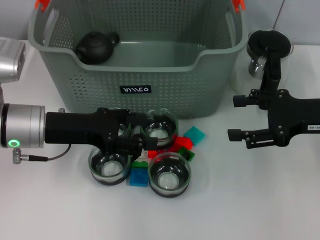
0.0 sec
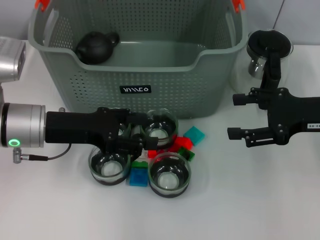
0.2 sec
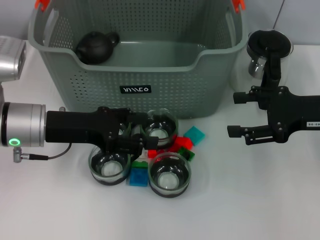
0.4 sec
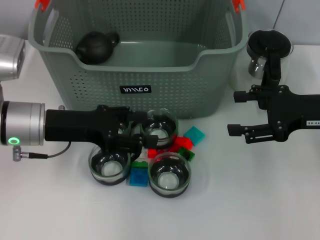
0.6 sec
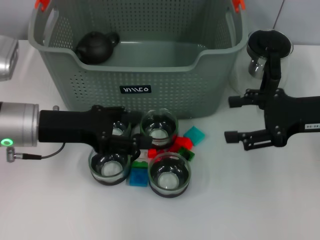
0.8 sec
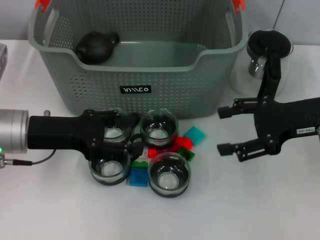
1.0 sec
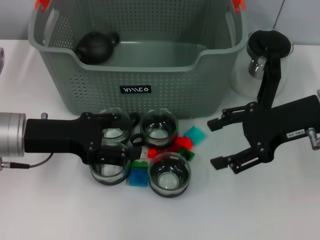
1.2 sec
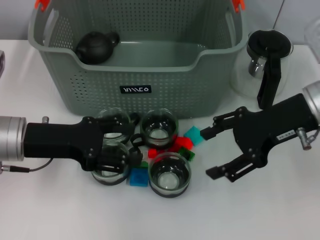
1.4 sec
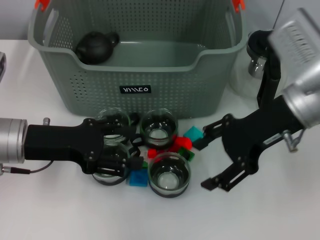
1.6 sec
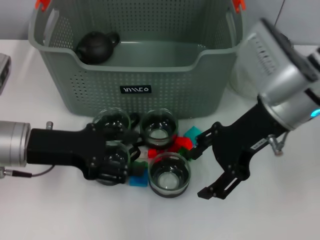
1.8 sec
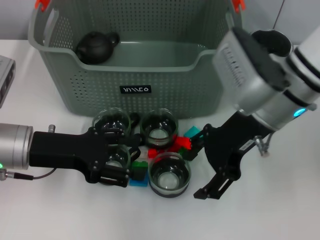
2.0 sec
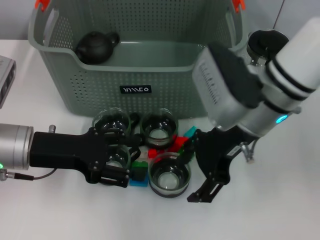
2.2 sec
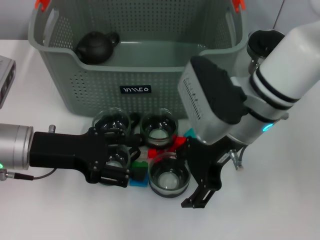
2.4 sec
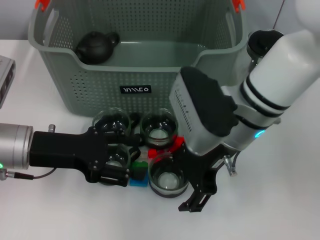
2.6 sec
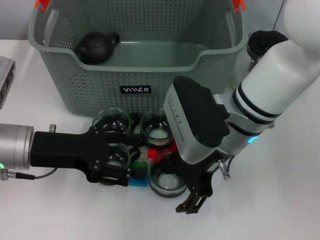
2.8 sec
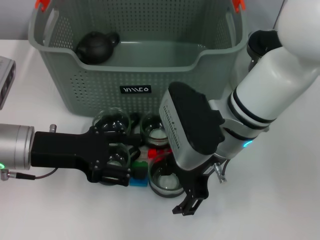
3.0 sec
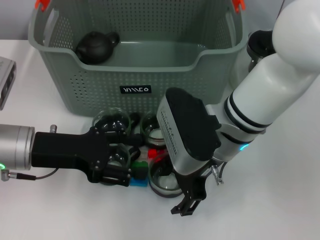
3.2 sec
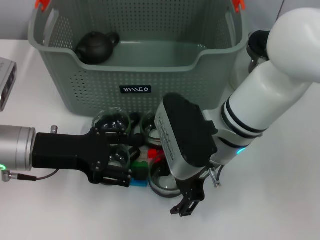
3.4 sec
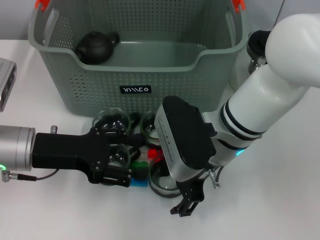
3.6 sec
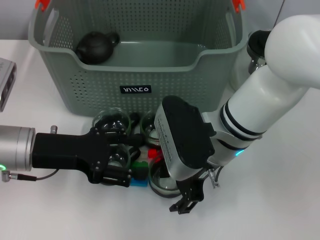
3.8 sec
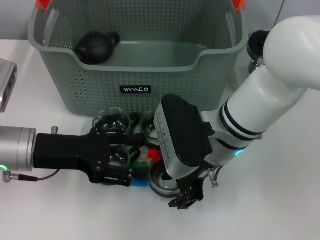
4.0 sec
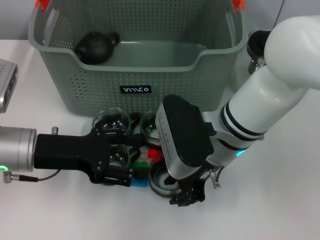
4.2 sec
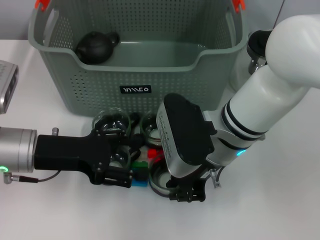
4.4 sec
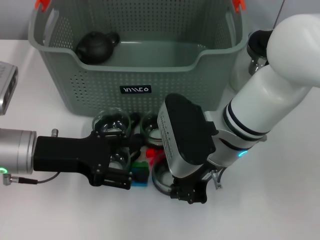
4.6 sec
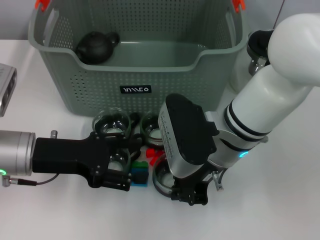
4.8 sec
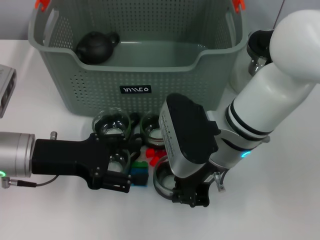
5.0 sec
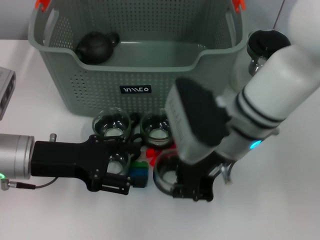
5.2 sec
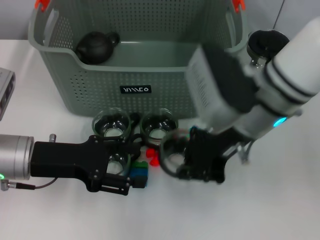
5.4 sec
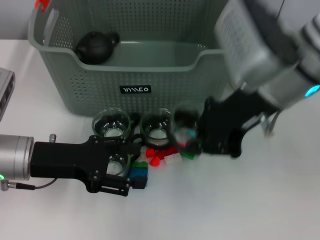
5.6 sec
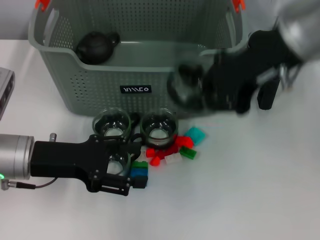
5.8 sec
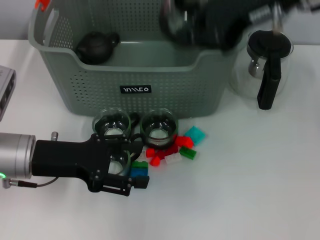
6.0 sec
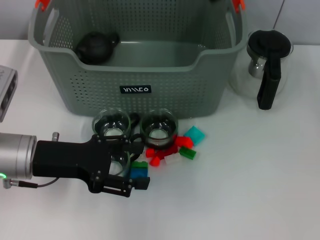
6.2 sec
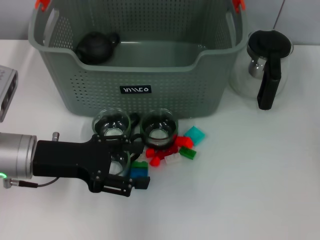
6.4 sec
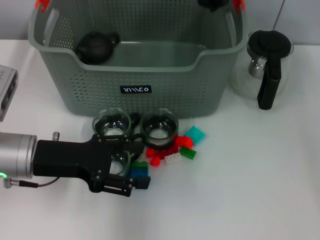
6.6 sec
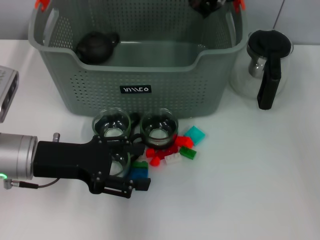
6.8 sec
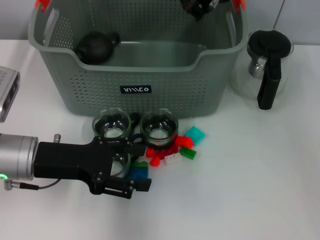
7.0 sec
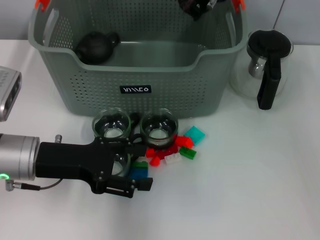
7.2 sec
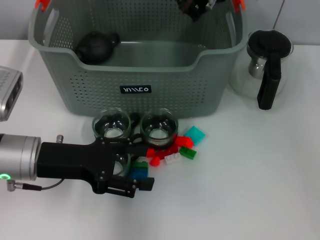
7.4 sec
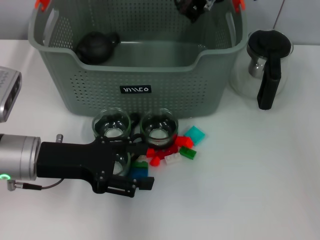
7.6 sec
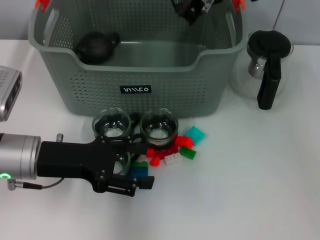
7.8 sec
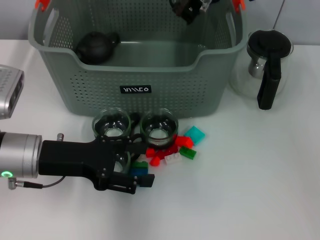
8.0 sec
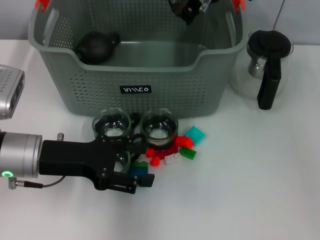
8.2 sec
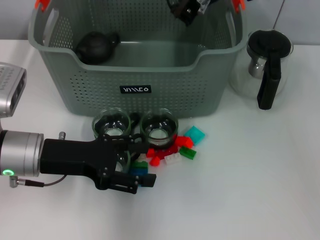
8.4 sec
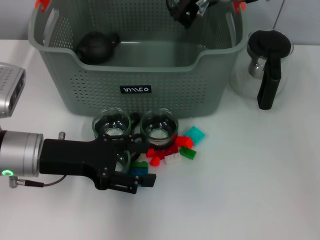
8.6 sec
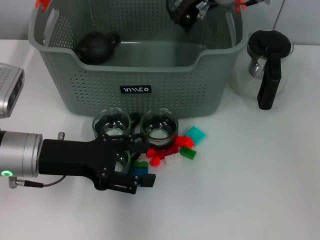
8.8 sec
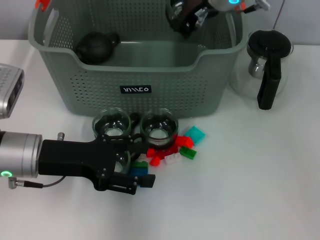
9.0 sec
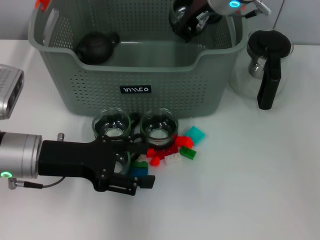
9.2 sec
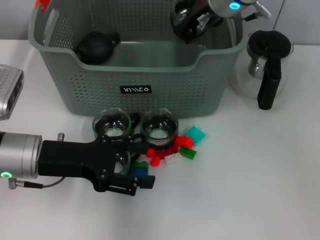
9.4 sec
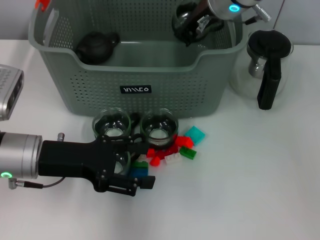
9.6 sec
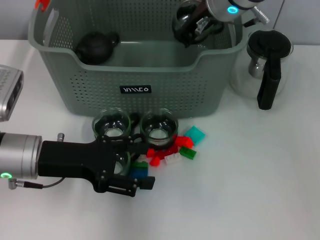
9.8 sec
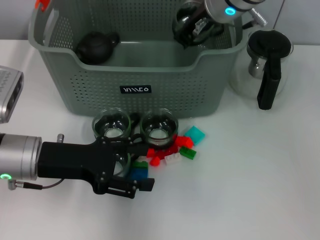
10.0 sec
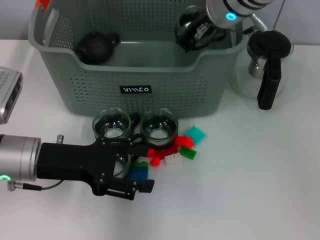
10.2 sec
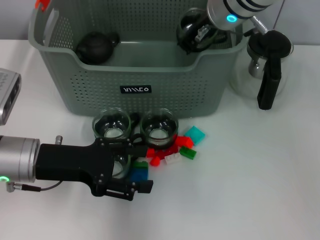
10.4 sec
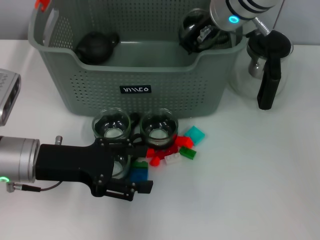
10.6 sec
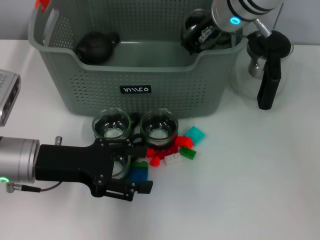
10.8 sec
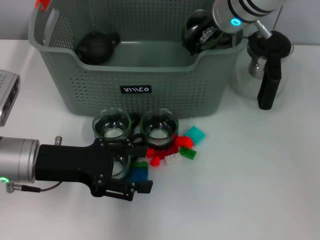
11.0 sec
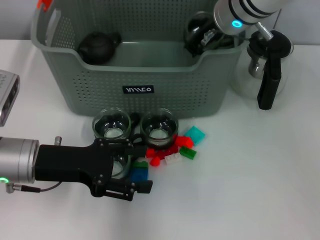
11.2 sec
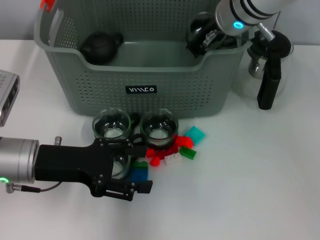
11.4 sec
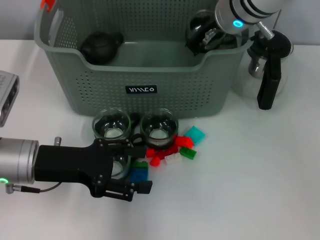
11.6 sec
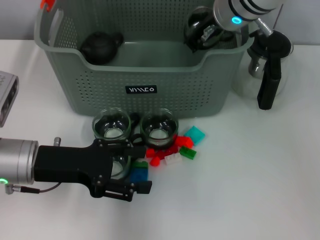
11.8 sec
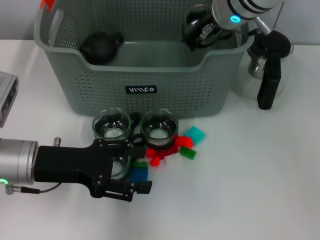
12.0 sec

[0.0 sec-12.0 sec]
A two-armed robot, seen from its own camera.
Task of the whole recording: pick up the teacup on the table and place it into the storage bin, pick up the block on the table and place it into the storage bin.
Step, 0.0 sec to 4.6 sec: Grasp the cup with right gripper.
0.0 sec to 1.6 sec: The right gripper is displaced to the left and upward by approximately 10 cm.
1.6 sec to 3.0 sec: The right gripper goes roughly 10 cm to the left.
3.0 sec to 4.4 sec: The right gripper closes up.
4.4 sec to 6.0 sec: The right gripper goes about 20 cm upward, and closes up.
6.0 sec to 7.6 sec: The right gripper heads forward, downward and to the left, covering some 15 cm.
7.6 sec to 12.0 sec: The grippers stay close to where they were, moving slightly.

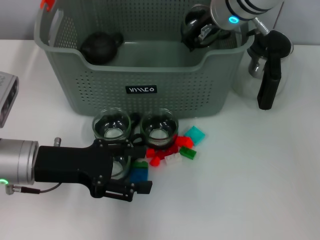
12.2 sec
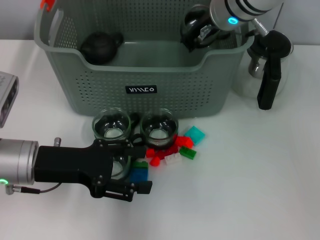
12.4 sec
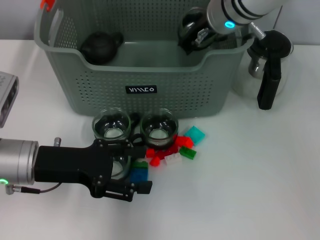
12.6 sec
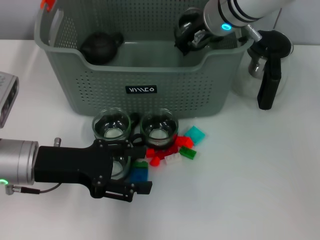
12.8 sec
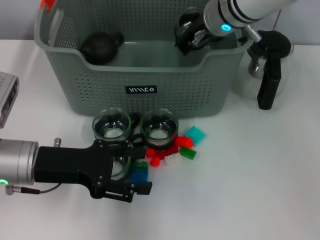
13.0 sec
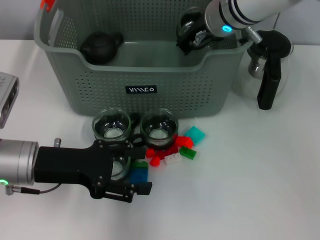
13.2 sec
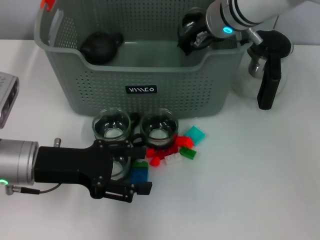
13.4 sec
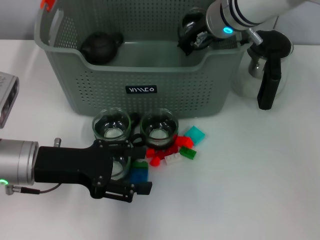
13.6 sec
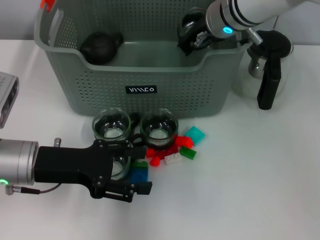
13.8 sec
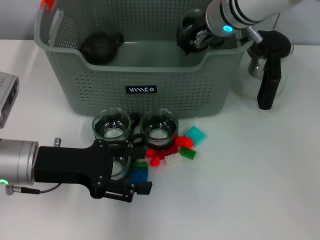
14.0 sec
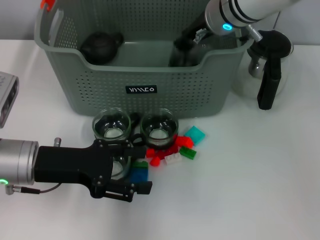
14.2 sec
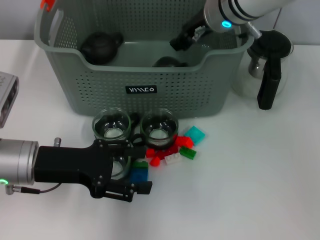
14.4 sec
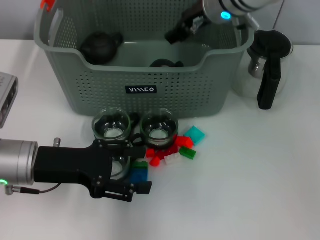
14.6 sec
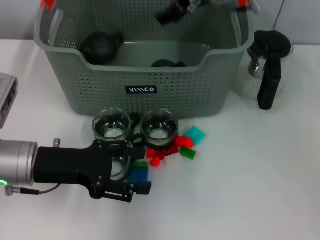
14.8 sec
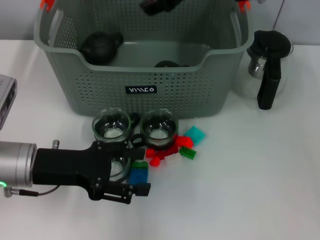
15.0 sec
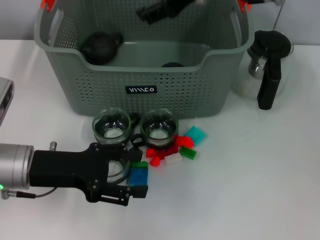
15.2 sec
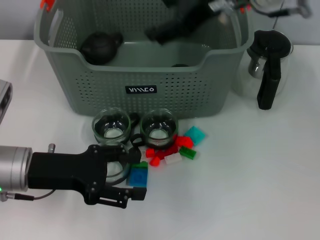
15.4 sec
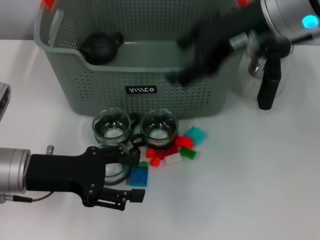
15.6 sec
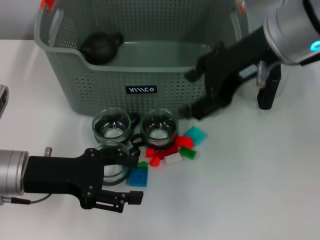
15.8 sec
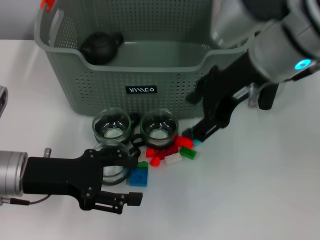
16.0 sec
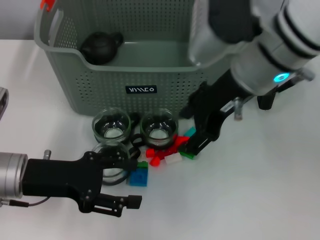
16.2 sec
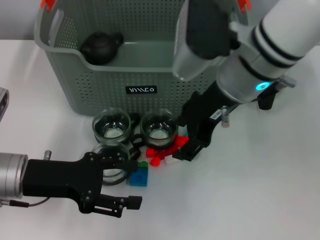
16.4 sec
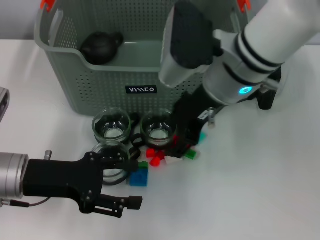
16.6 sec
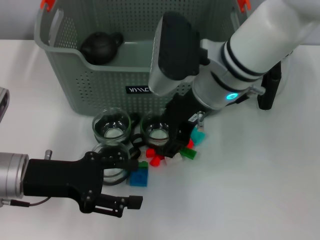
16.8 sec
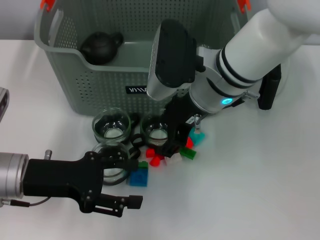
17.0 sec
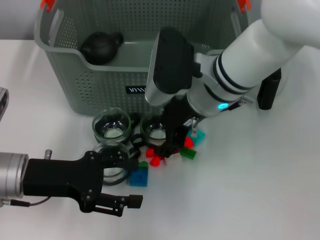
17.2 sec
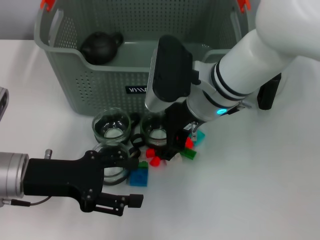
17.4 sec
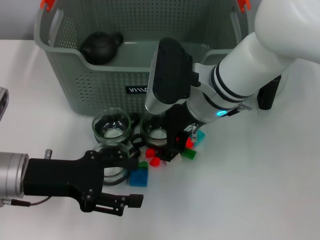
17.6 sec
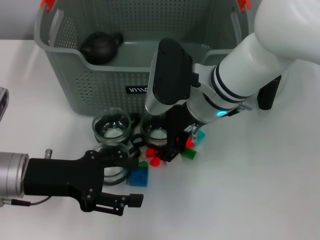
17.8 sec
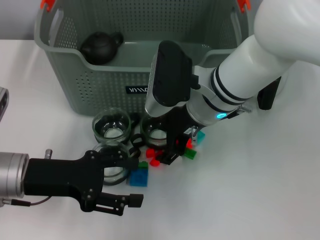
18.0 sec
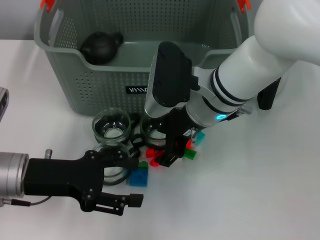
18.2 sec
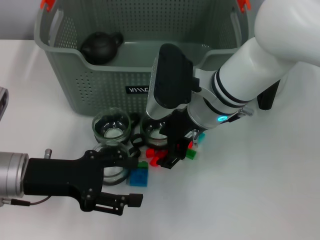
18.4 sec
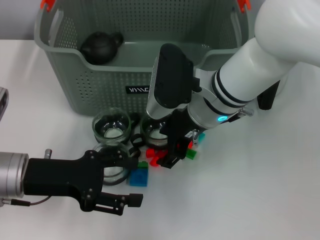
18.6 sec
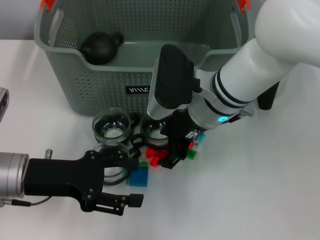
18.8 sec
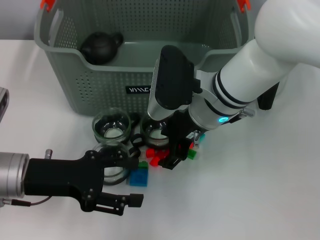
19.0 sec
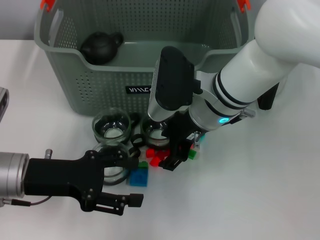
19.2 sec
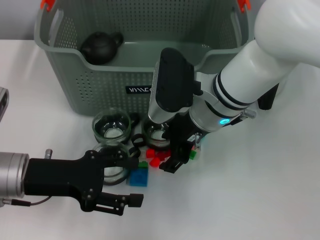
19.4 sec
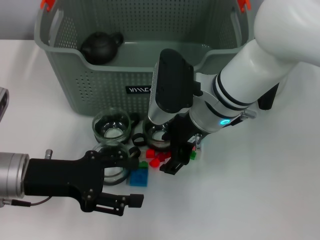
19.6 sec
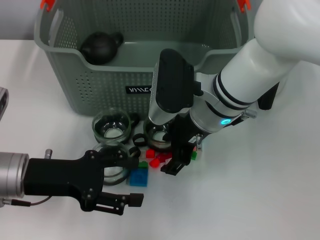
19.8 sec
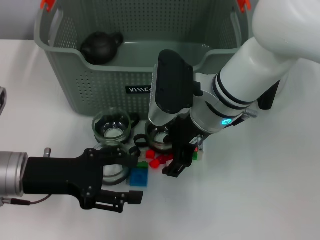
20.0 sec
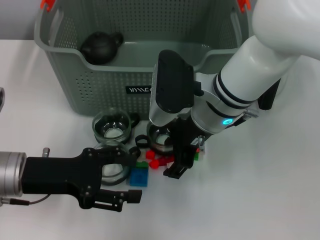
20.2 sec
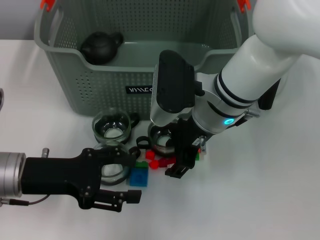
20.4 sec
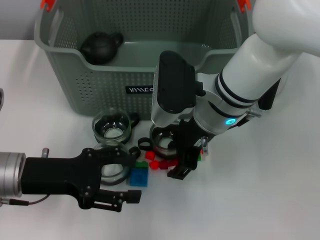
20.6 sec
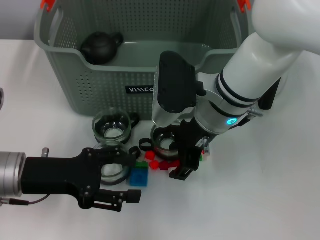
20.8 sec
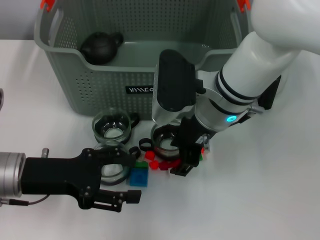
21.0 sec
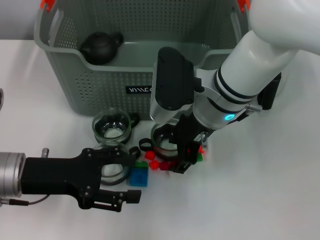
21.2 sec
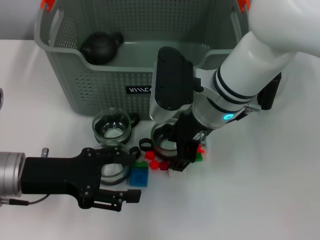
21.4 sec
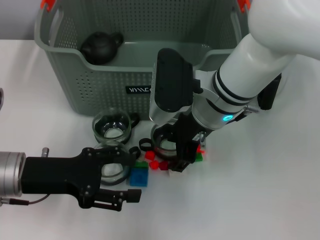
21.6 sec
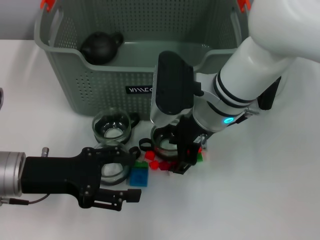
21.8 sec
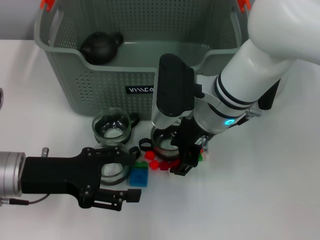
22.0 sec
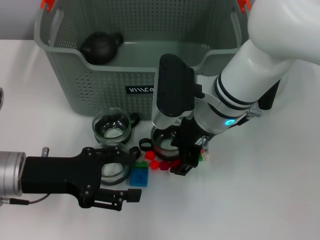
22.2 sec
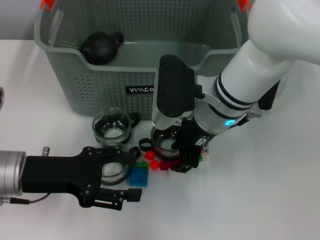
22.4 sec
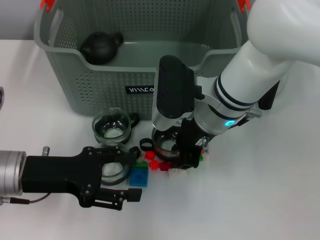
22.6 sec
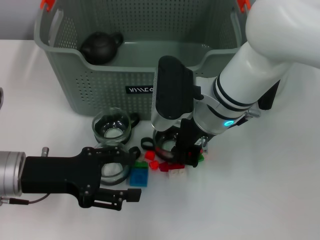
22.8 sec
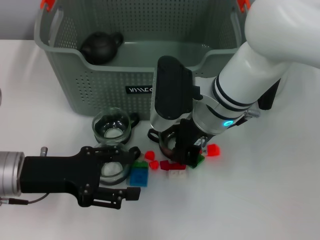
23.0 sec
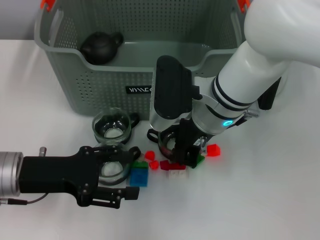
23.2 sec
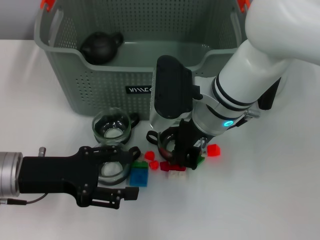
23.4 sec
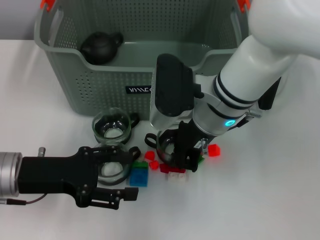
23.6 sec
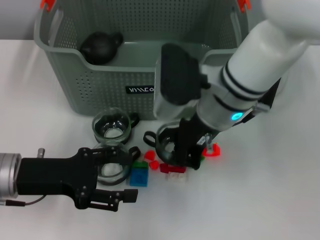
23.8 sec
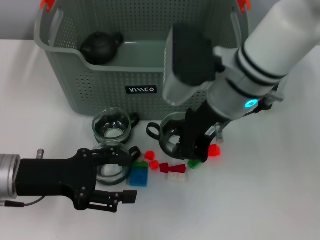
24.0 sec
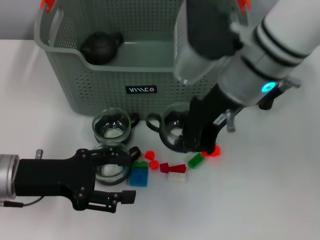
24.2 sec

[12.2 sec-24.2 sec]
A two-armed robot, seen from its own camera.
Task of the whole recording: pick up the teacup on the table and place it into the storage bin, pick up the block on the table and place it into the storage bin.
Step, 12.2 sec to 14.6 sec: Place the cup in the storage box with right gripper.
Step, 14.8 sec to 23.0 sec: Grasp the cup with right gripper.
12.2 sec to 13.8 sec: The grippers stay close to where they were, moving slightly.
13.8 sec to 15.2 sec: The right gripper is displaced upward and backward by about 10 cm, and opens up.
15.2 sec to 16.6 sec: The right gripper shifts approximately 10 cm downward.
16.6 sec to 18.2 sec: The right gripper shifts approximately 5 cm downward.
18.2 sec to 19.8 sec: Both grippers stay put.
19.8 sec to 22.6 sec: Both grippers stay put.
22.6 sec to 24.2 sec: The right gripper travels upward by some 10 cm, and closes its fingers.
